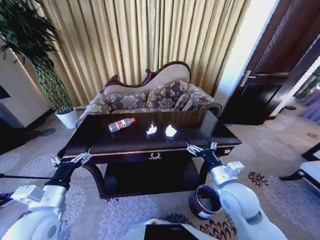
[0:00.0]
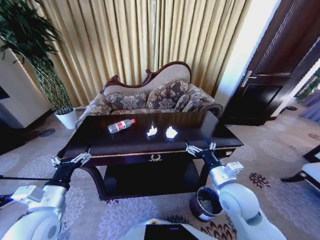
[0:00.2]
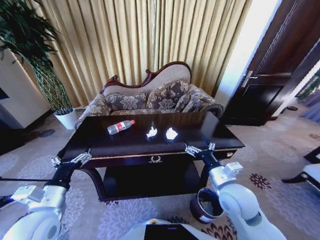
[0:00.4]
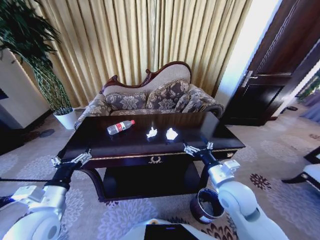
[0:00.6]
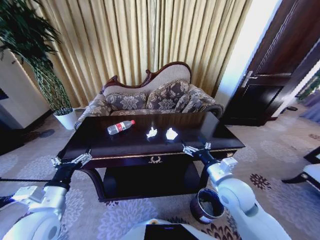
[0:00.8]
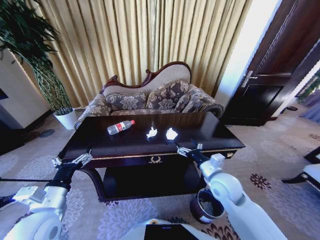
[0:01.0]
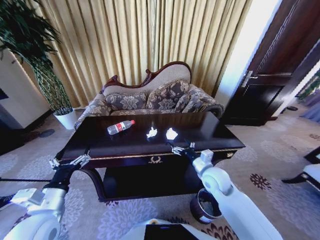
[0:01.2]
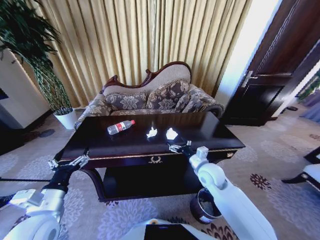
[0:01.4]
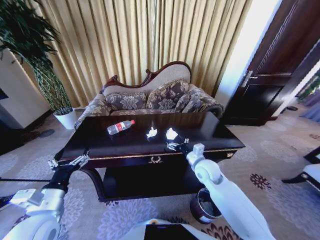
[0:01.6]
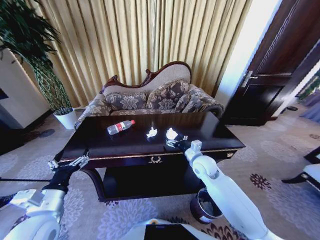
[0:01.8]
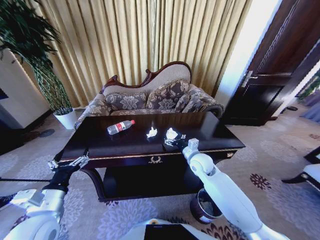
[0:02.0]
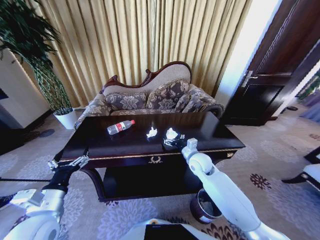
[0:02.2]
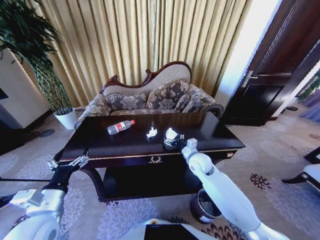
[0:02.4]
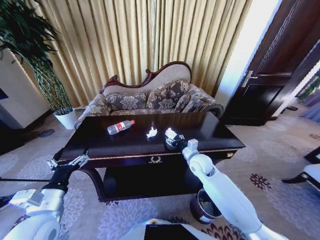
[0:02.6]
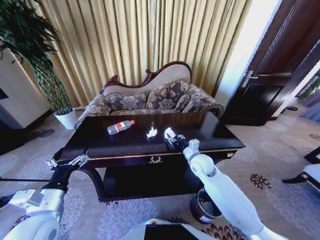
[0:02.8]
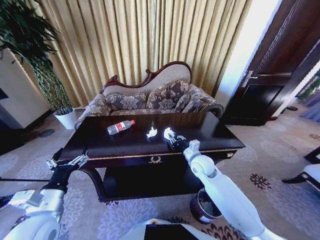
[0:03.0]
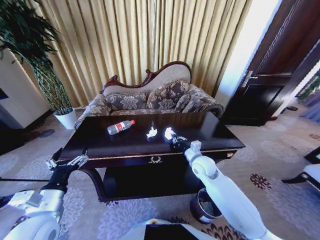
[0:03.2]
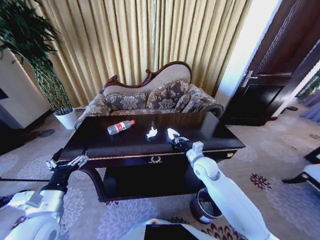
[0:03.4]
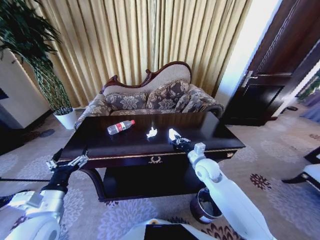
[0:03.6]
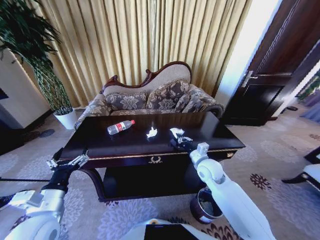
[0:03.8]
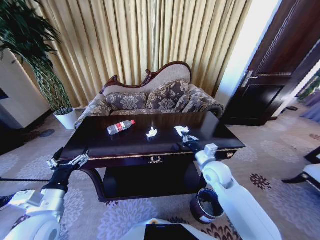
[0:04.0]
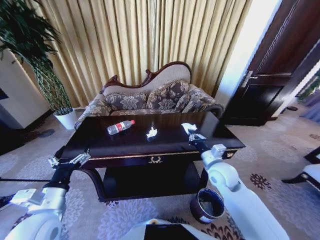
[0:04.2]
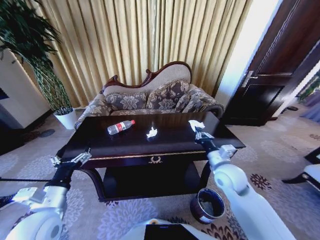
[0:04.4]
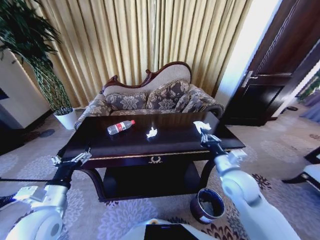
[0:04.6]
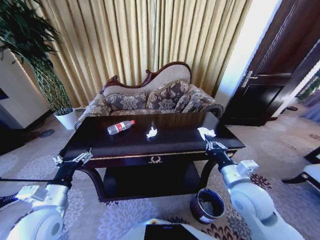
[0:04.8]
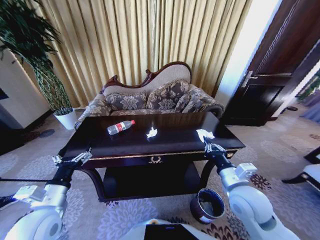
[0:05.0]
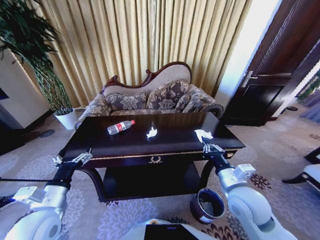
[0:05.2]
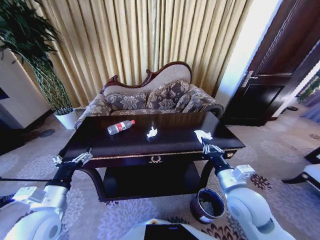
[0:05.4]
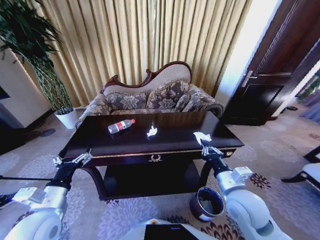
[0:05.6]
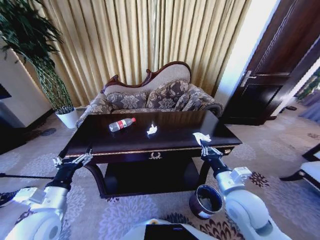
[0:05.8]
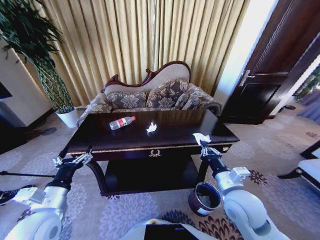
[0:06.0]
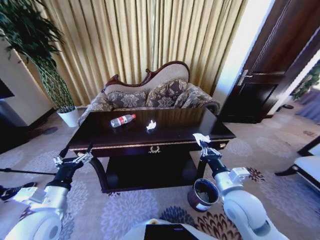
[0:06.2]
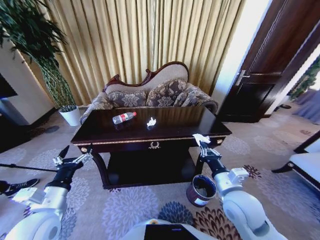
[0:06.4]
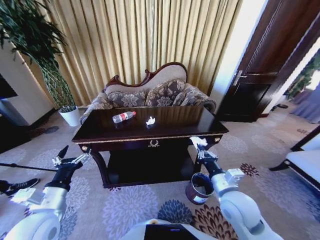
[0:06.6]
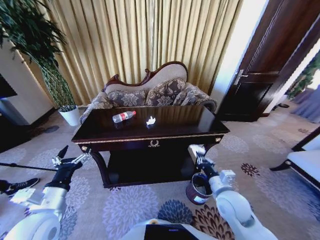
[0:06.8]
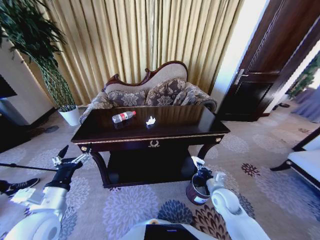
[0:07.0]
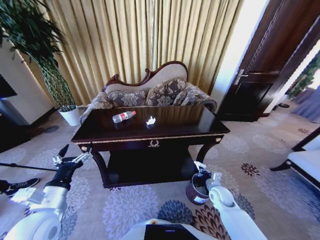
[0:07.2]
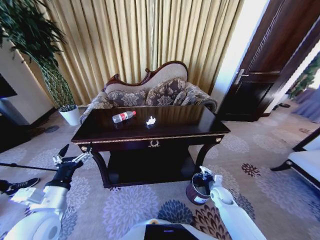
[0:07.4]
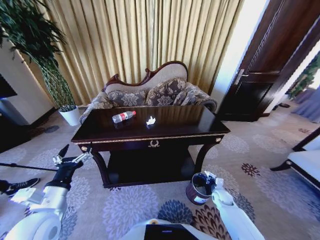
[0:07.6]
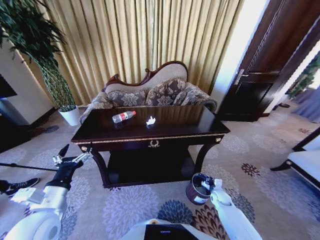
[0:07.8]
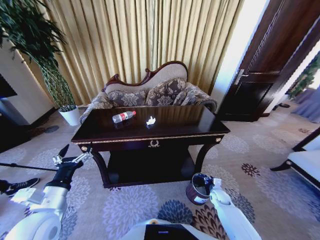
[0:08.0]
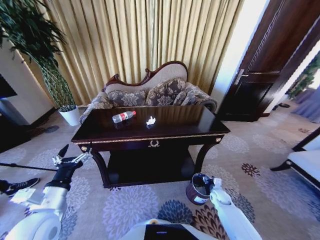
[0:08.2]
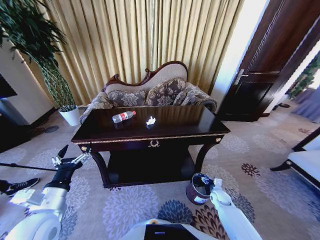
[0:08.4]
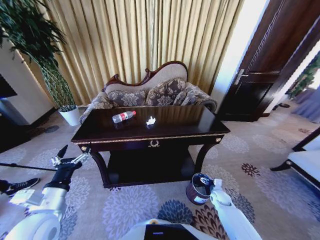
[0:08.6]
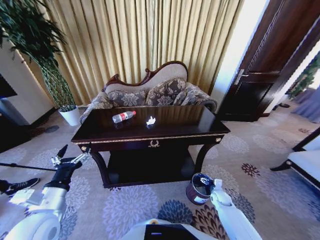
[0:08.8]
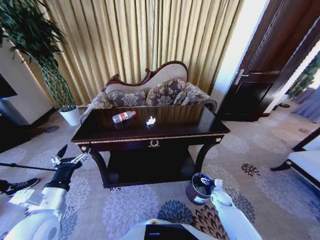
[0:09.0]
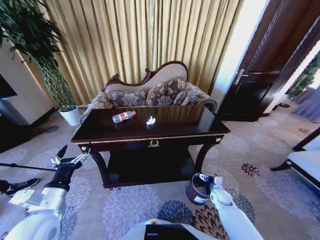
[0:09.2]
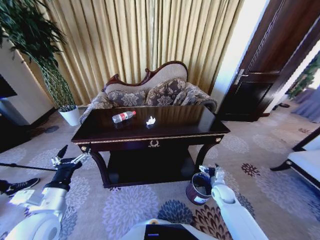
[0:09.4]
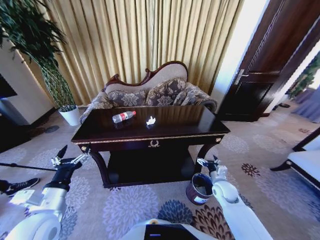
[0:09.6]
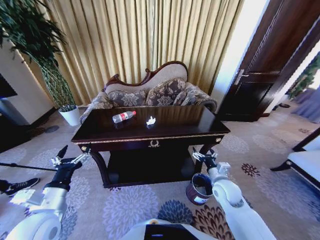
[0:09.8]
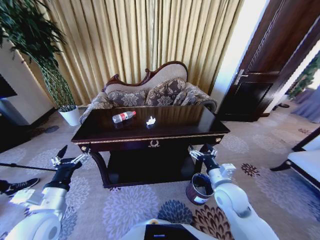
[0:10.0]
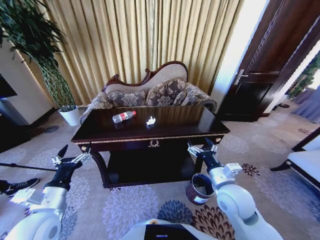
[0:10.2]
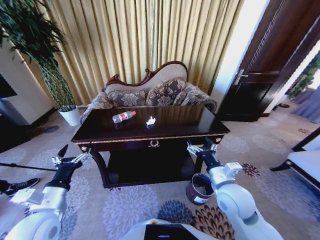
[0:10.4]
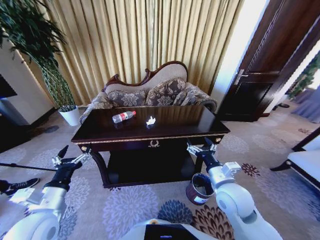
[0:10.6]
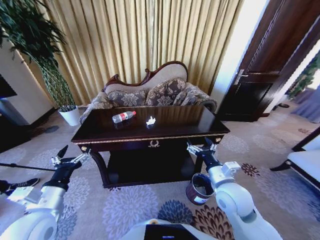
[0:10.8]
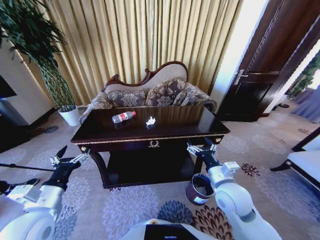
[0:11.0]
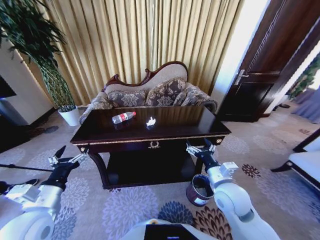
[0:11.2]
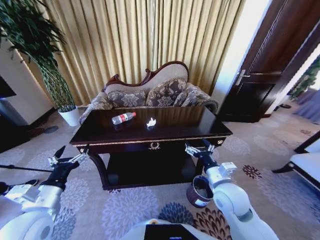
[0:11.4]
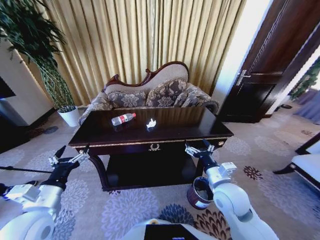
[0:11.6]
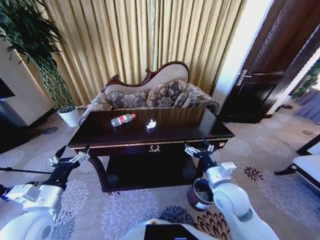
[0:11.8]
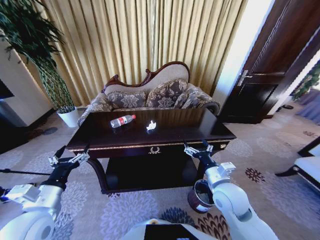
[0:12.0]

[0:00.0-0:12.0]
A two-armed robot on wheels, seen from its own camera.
Task of the whole recording: Move to the front of the table and place the trash on the table into the trash bin.
0:00.0 to 0:01.6: The right gripper is displaced forward and downward by about 15 cm.
0:01.6 to 0:03.0: The right gripper closes up.
0:03.0 to 0:04.4: The right gripper is displaced backward, to the right and upward by some 10 cm.
0:04.4 to 0:06.0: The right gripper heads backward, covering approximately 10 cm.
0:06.0 to 0:07.6: The right gripper travels downward and to the right by roughly 35 cm.
0:07.6 to 0:09.0: The right gripper opens up.
0:09.0 to 0:10.4: The right gripper heads upward and to the left, covering approximately 35 cm.

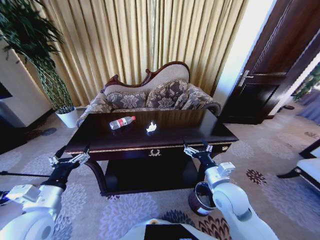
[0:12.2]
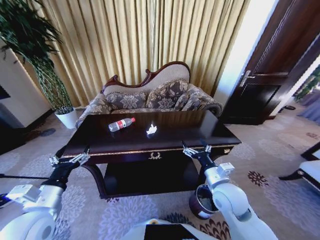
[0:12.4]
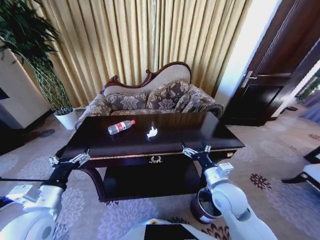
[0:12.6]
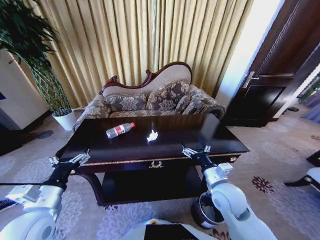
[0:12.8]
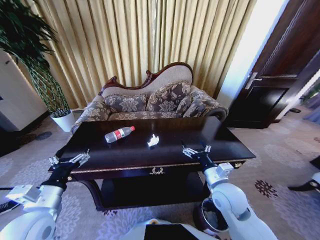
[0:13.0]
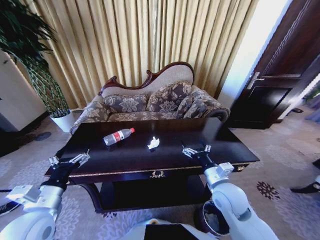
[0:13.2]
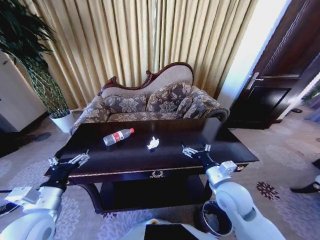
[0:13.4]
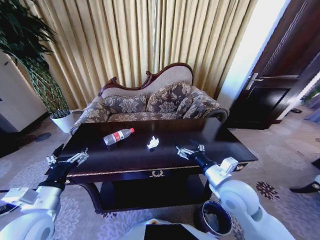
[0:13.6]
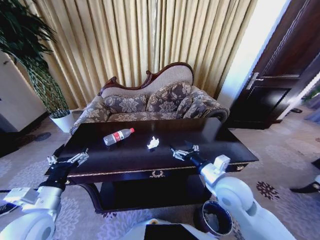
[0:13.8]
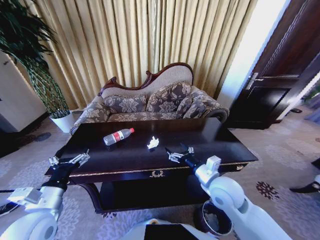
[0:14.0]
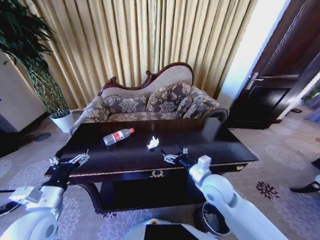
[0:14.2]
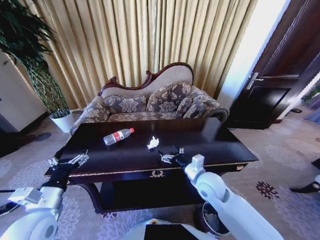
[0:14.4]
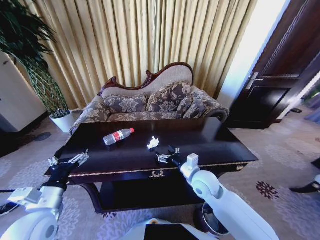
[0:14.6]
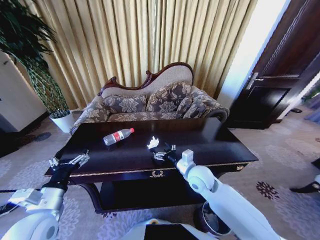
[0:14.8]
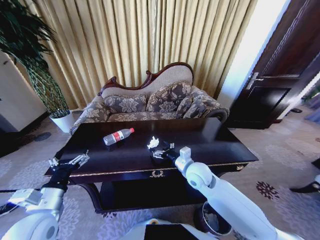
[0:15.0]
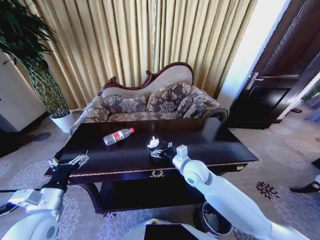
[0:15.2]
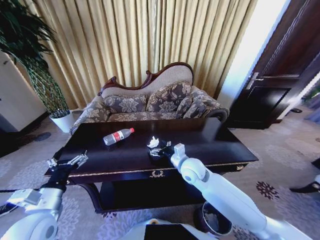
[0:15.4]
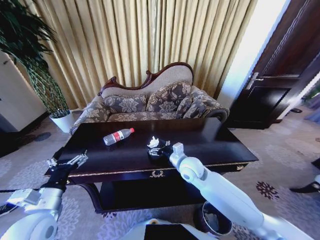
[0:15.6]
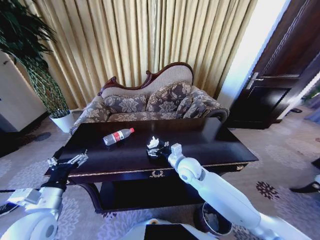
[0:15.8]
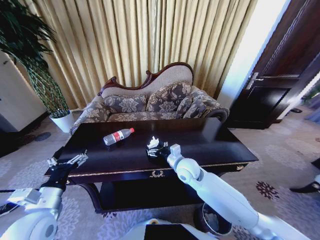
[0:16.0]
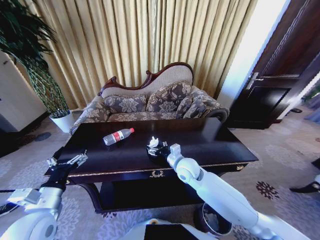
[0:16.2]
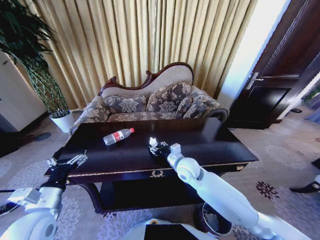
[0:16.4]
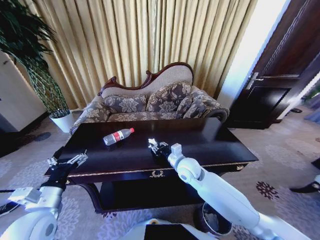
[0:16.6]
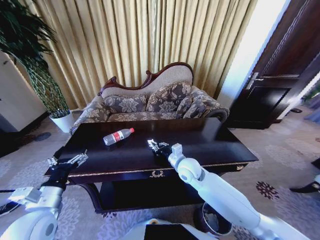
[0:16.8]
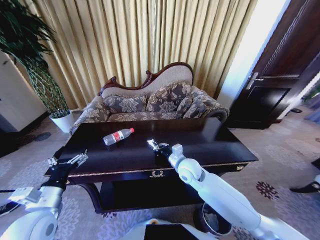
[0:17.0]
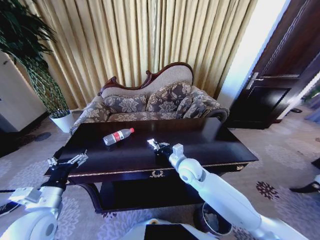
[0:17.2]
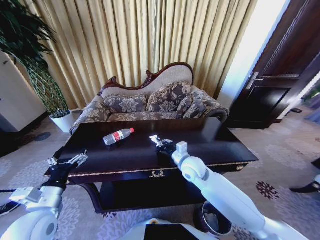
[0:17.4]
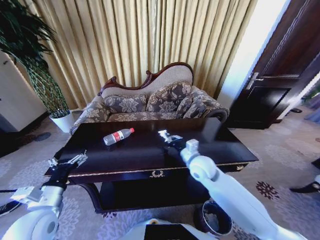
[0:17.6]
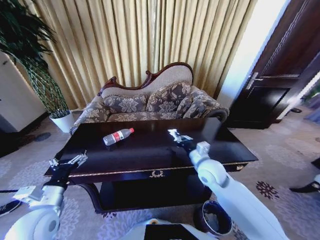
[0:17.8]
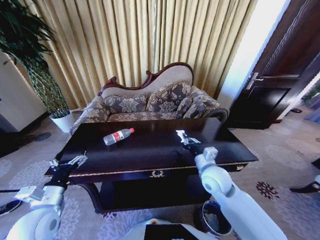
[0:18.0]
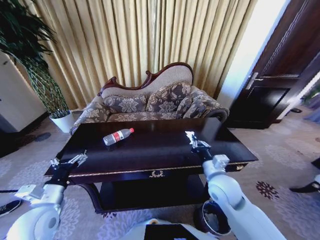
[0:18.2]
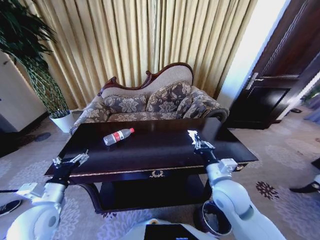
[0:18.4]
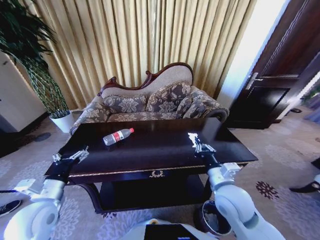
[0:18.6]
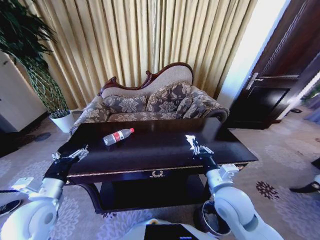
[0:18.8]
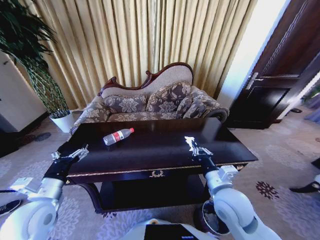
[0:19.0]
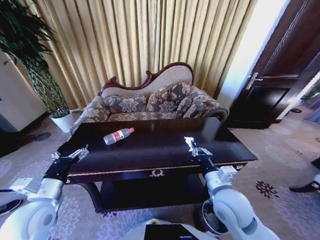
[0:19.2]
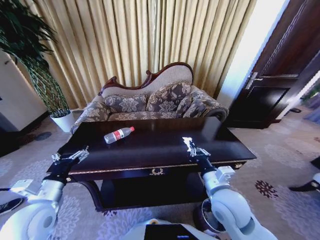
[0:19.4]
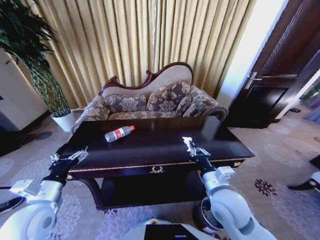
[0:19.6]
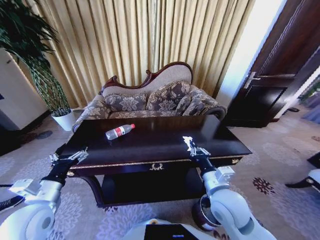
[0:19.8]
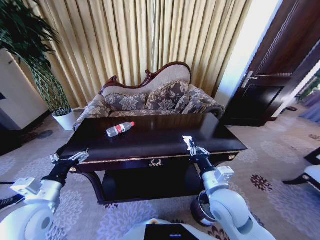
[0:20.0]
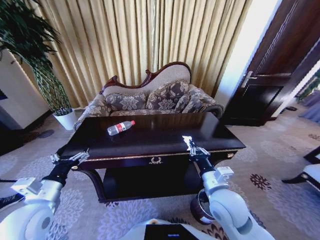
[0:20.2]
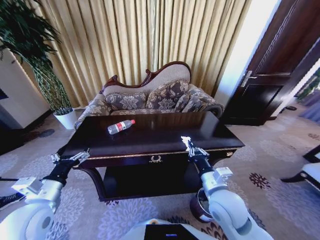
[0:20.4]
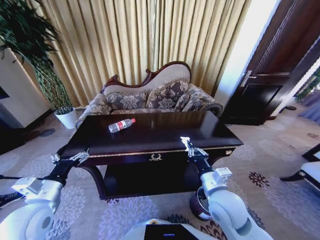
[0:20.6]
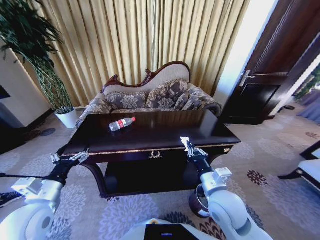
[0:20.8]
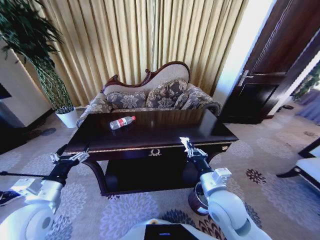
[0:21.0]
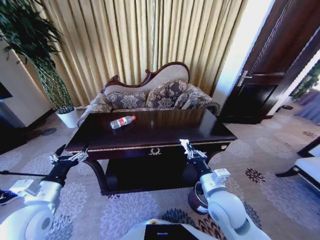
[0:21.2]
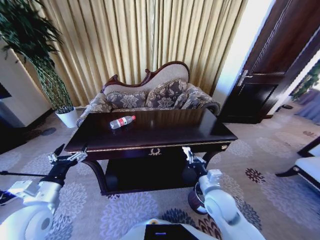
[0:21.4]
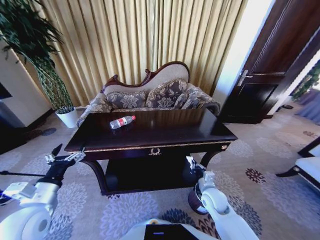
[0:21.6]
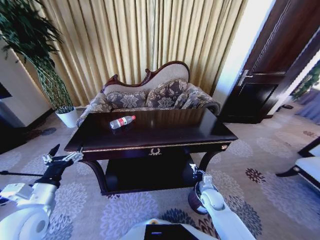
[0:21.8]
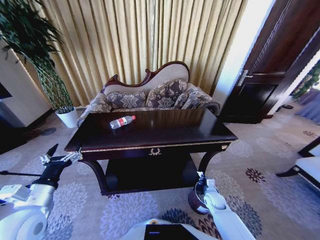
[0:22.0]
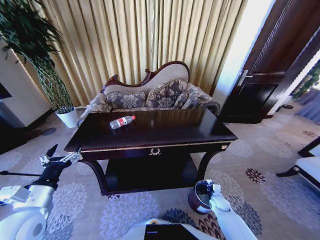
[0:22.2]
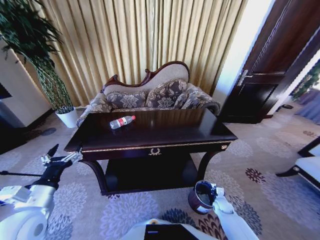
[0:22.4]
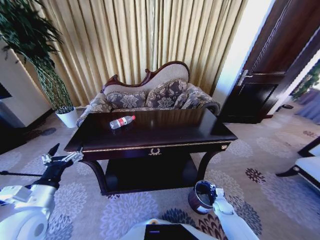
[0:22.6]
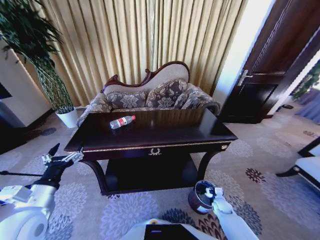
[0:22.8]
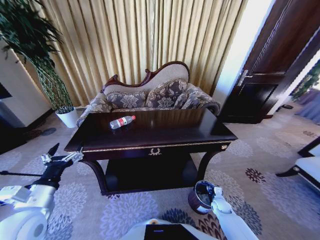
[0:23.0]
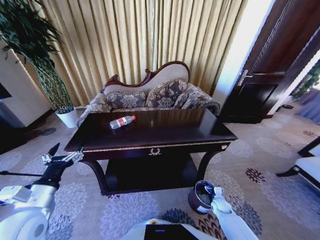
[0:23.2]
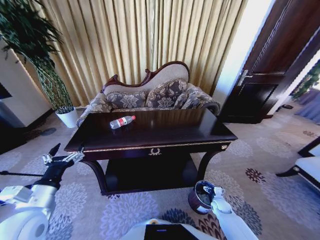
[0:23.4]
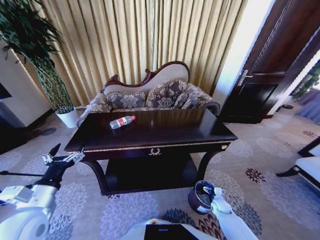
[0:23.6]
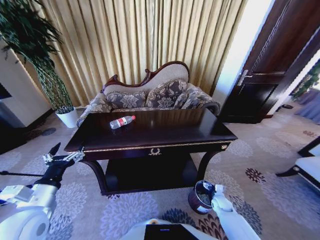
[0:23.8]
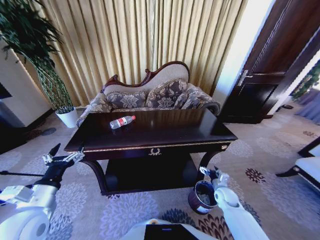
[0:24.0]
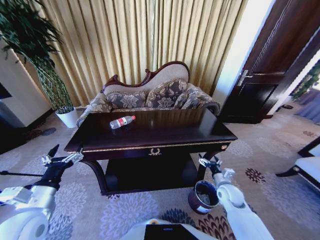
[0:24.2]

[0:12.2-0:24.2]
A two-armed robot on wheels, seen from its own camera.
Task of the whole recording: Move to the front of the table and place the trash on the table into the trash bin.
0:13.8 to 0:15.2: The right gripper goes approximately 10 cm forward and to the left.
0:15.2 to 0:16.6: The right gripper closes its fingers.
0:16.6 to 0:18.2: The right gripper shifts about 15 cm to the right and backward, and closes its fingers.
0:18.2 to 0:19.8: The right gripper is displaced backward by roughly 5 cm.
0:21.2 to 0:22.6: The right gripper moves downward and to the right, some 40 cm.
0:22.6 to 0:24.2: The right gripper shifts some 20 cm upward, and opens its fingers.
